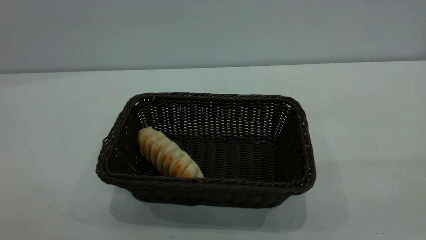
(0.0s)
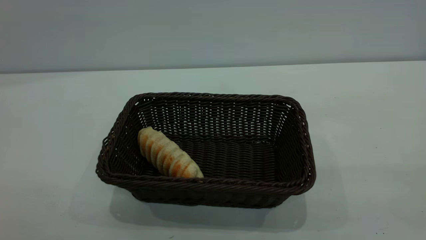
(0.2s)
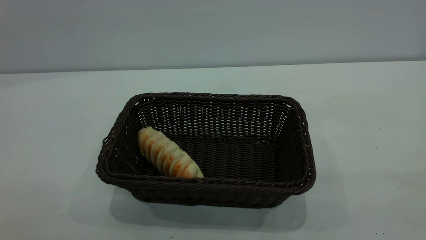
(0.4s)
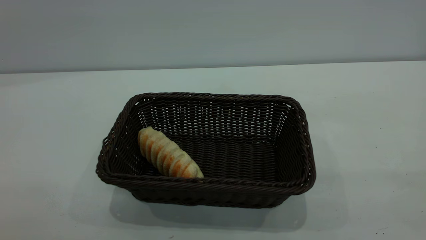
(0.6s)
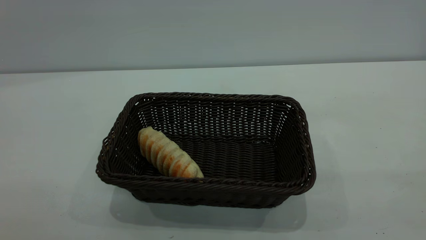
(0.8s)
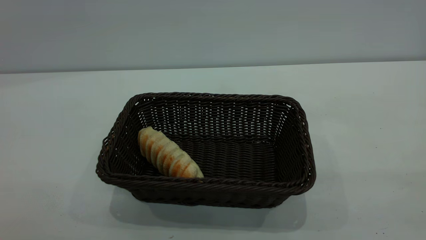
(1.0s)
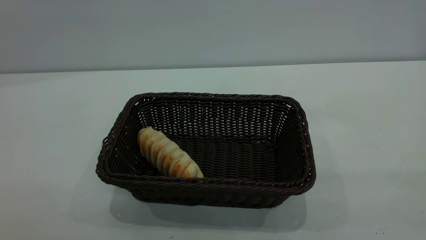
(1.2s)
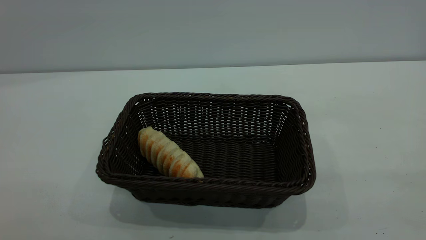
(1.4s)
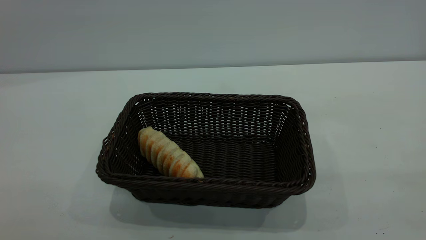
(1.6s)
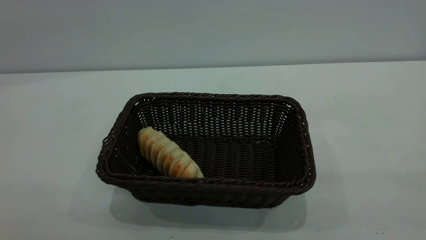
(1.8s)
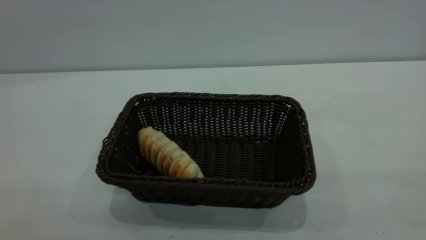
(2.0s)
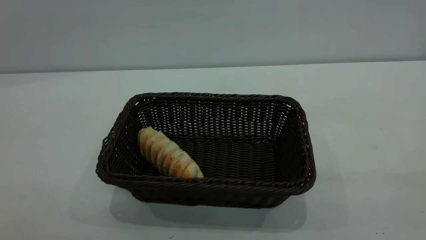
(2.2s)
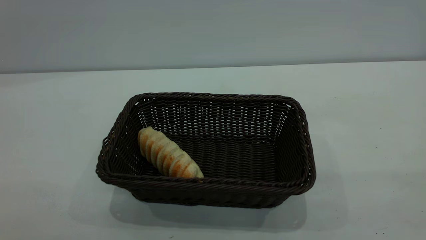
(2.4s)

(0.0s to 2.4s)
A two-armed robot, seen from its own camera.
Task of the whole recording: One hand grasps the black basket and places it in the middle of the table, while the other hand picks up the long bread and puts it into the black basket.
1.2s - 2.4s: Both grippers stay put.

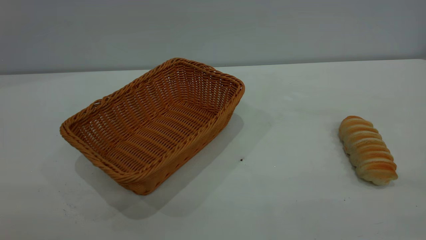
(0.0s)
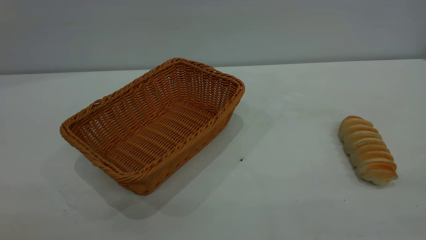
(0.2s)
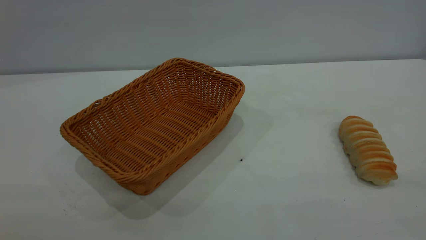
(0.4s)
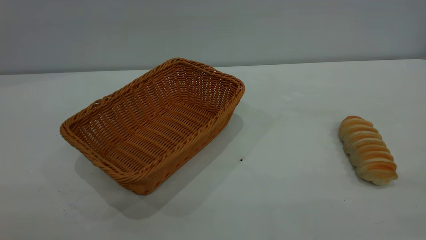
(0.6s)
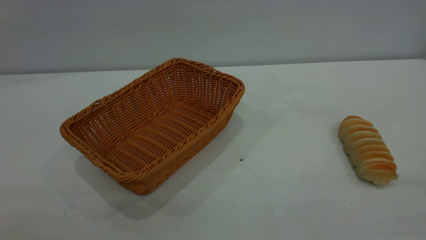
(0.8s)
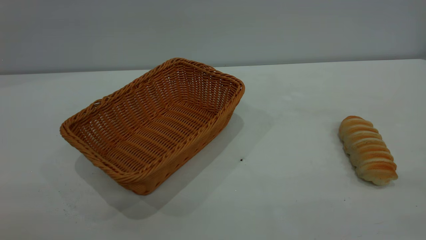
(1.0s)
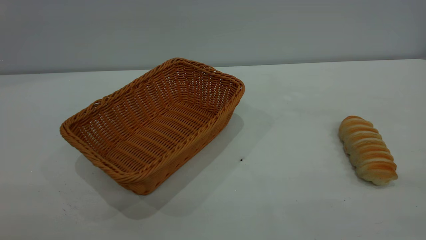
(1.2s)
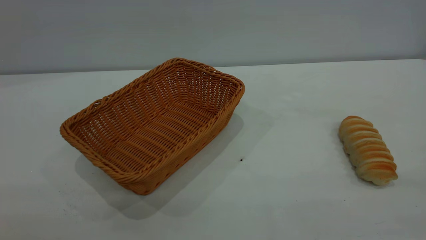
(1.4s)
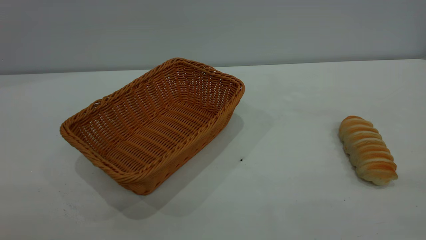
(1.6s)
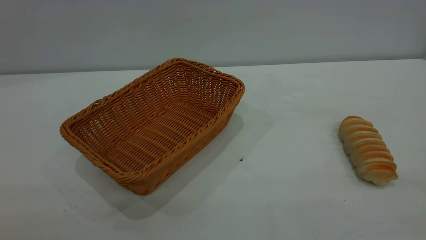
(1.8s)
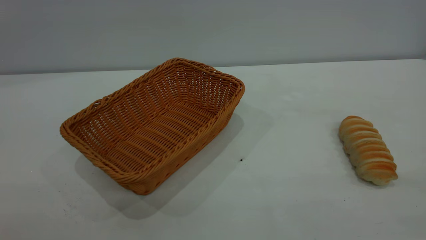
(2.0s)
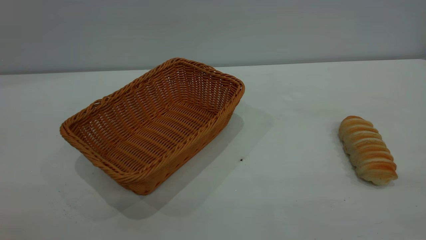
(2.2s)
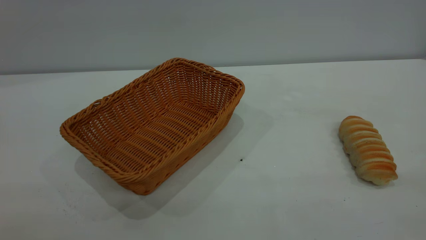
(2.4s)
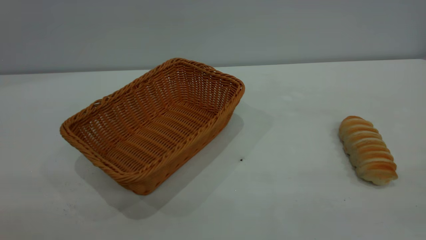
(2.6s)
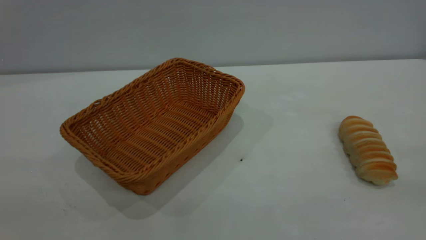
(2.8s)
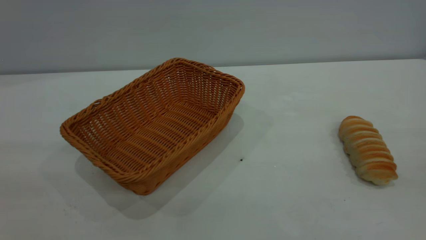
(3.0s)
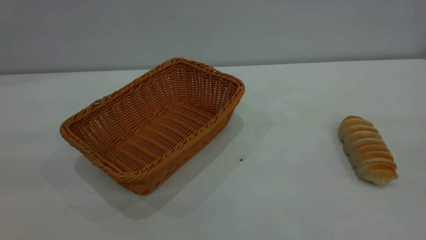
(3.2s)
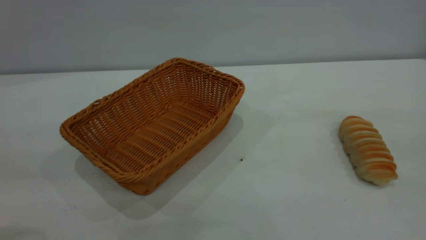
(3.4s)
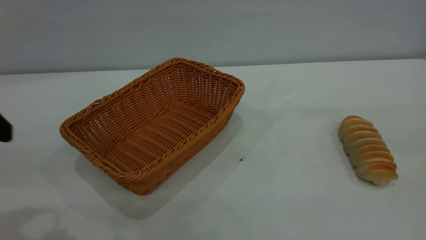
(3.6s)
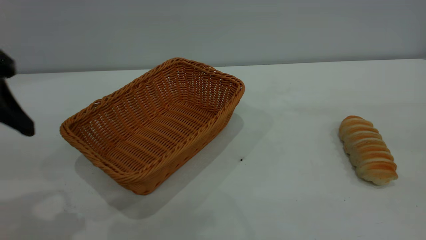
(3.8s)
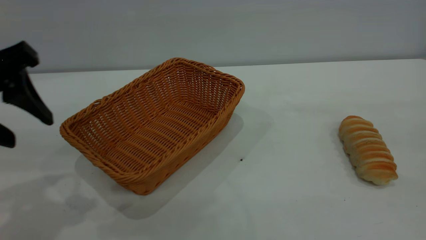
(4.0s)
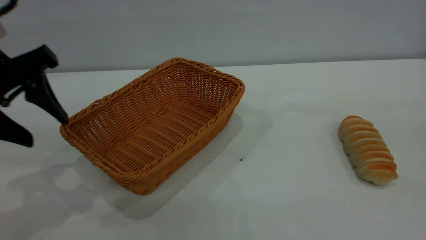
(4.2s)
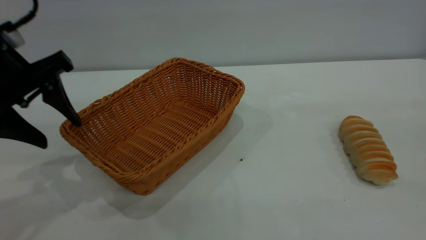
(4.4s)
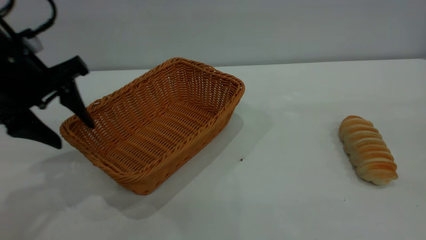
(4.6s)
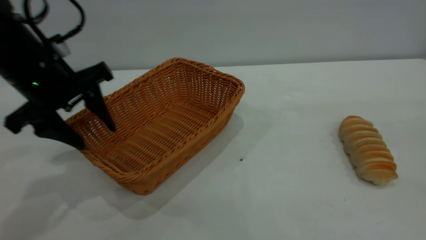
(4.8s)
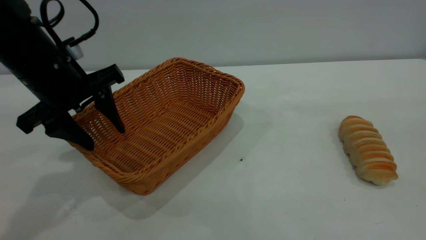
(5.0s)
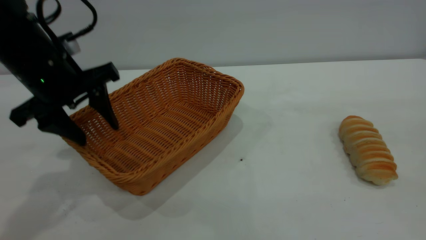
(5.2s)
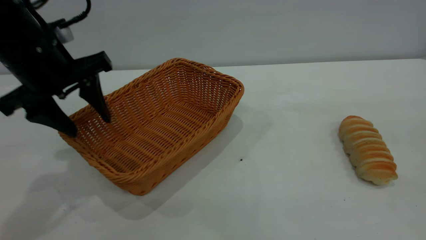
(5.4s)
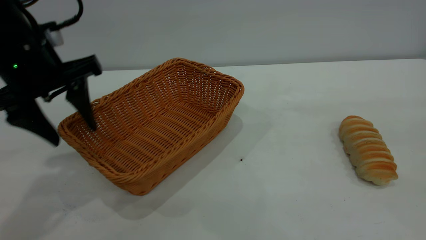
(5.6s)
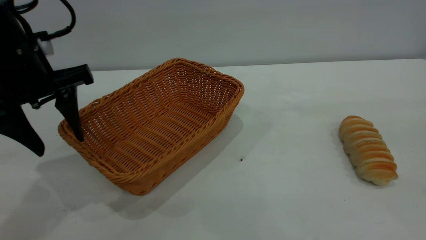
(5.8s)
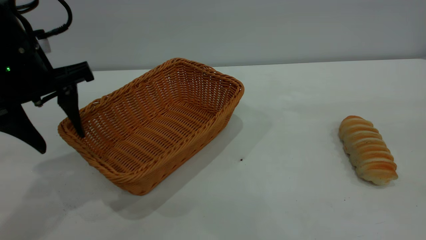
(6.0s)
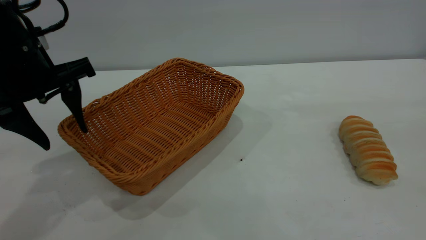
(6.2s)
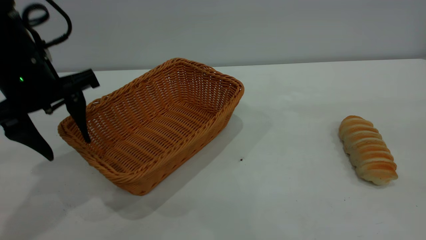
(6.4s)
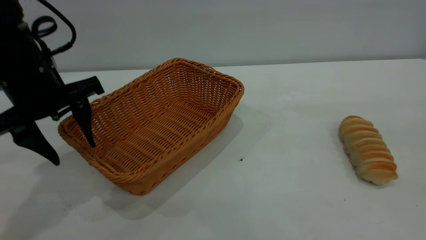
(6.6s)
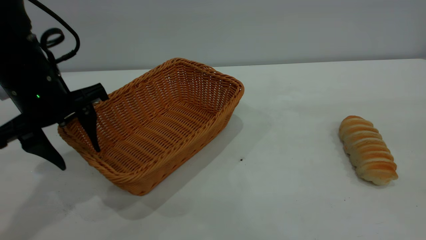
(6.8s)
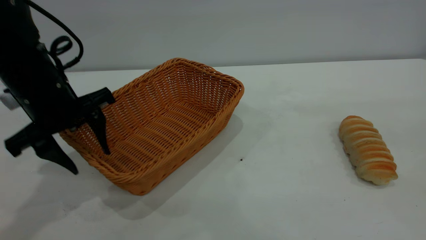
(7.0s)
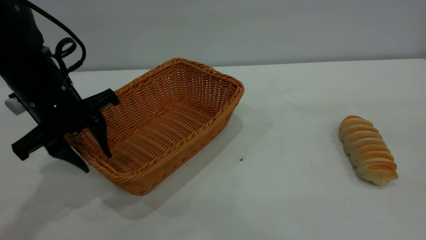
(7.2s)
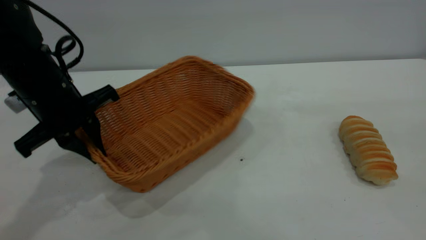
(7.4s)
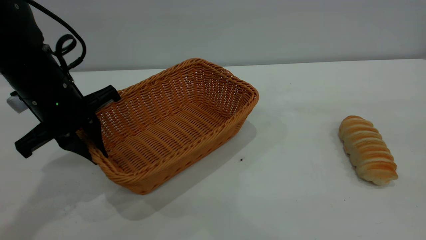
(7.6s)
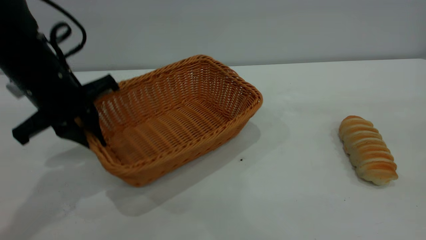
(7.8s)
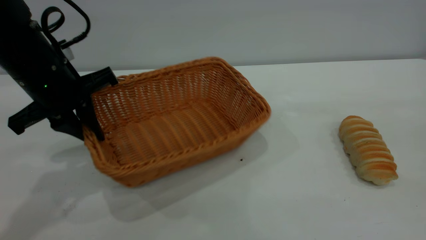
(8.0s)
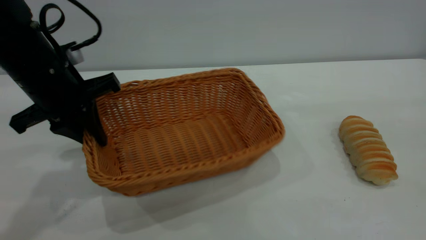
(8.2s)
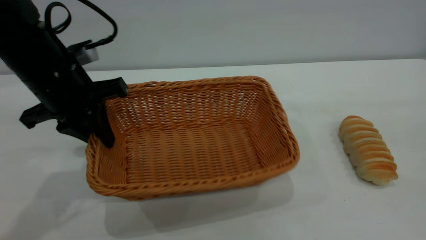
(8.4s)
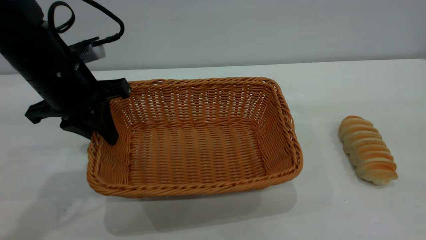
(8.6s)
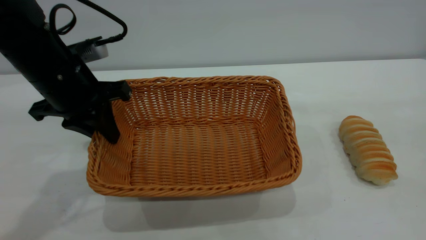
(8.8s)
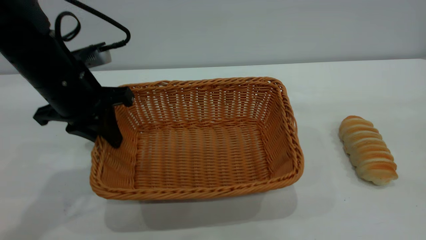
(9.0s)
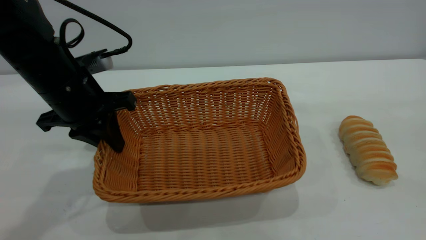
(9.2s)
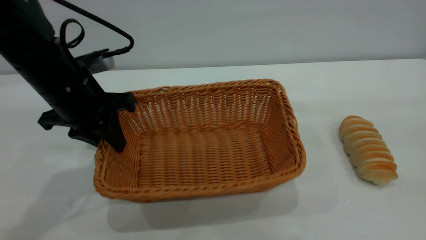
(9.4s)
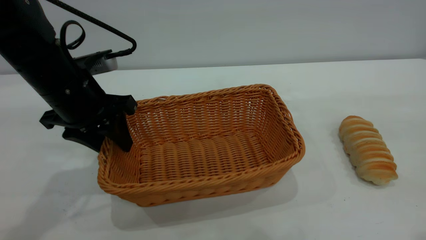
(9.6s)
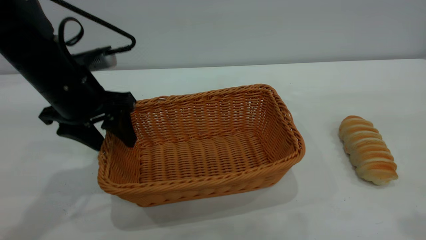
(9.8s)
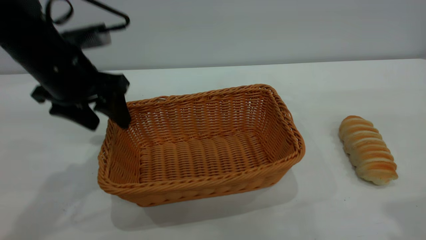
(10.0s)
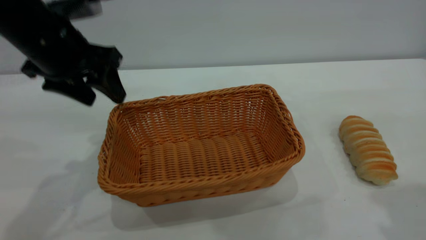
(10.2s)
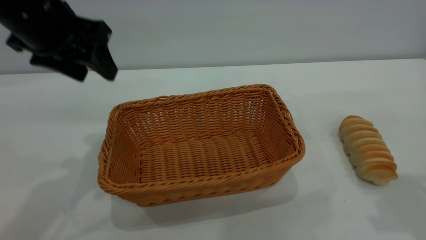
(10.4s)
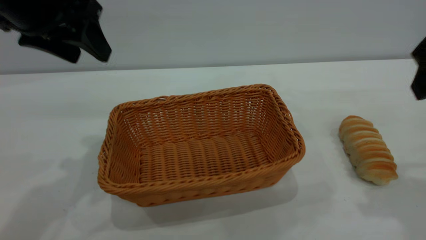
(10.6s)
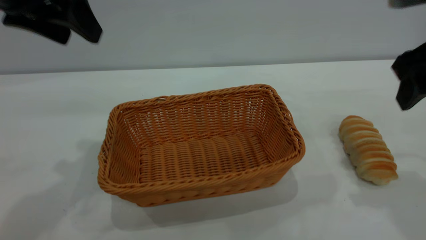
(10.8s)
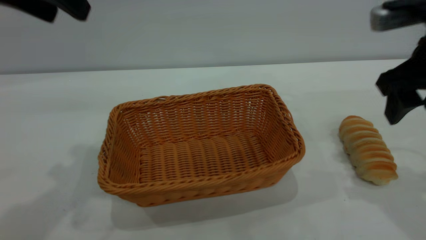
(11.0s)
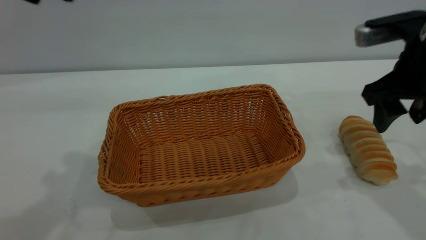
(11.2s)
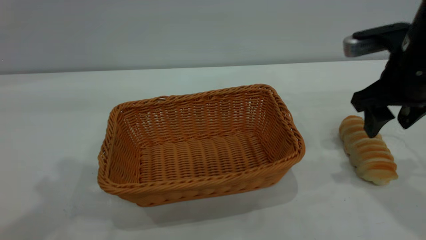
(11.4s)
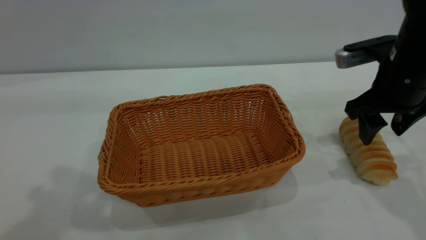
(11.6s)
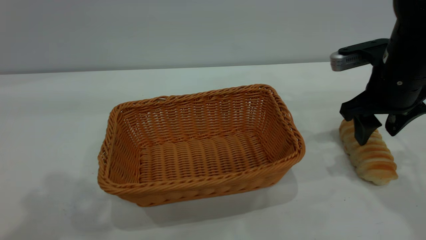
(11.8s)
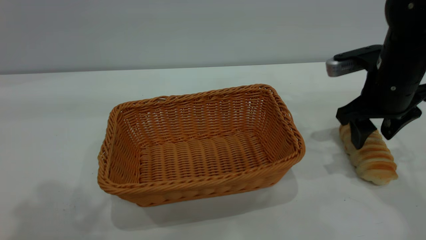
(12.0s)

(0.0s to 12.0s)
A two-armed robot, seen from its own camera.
Task of the whole recording: One hand grasps the yellow basket and places it in the middle of the table, while the other hand picks up the long bread and puts it into the yellow basket.
Step, 0.0s - 10.2s: Move the basket to the center of view.
0.0s - 1.6s: Neither gripper changes place.
3.0s - 4.4s: The left gripper is displaced forward and downward by some 25 cm.
4.4s - 6.0s: The grippers make only small movements.
6.0s - 7.6s: The left gripper moves downward, roughly 5 cm, and closes its fingers.
9.0s - 10.4s: The right gripper travels forward and downward by approximately 15 cm; the left gripper travels upward by roughly 10 cm, and opens its fingers.
10.4s - 12.0s: The left gripper is displaced upward and backward by roughly 20 cm, while the right gripper is displaced downward and forward by about 20 cm.

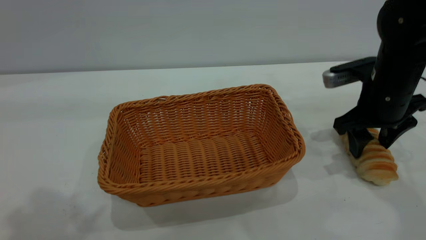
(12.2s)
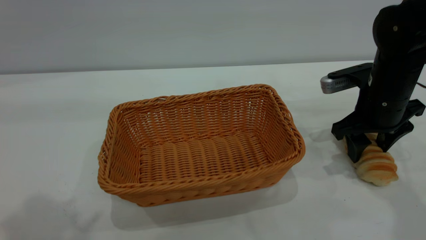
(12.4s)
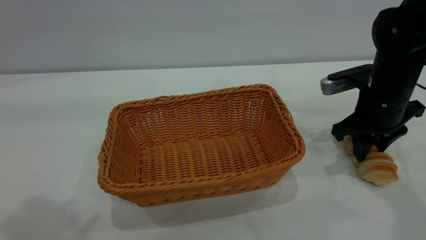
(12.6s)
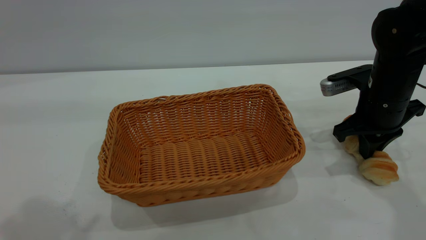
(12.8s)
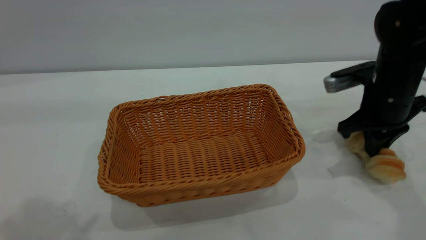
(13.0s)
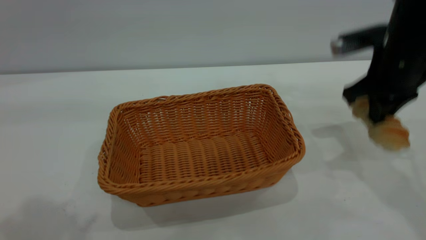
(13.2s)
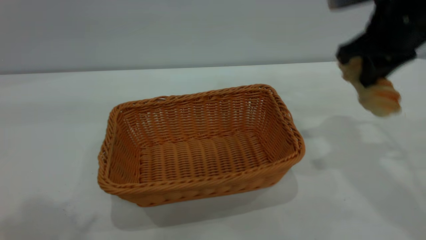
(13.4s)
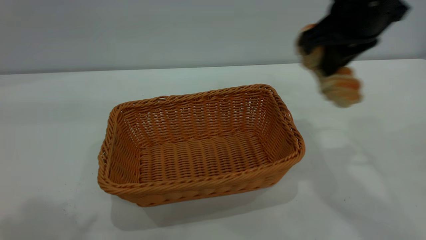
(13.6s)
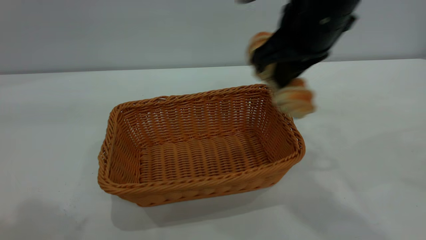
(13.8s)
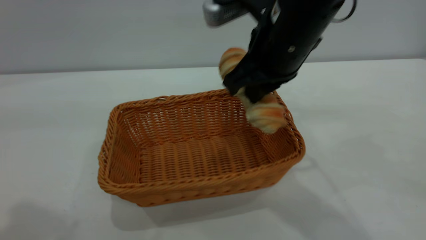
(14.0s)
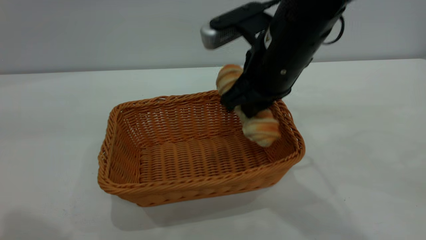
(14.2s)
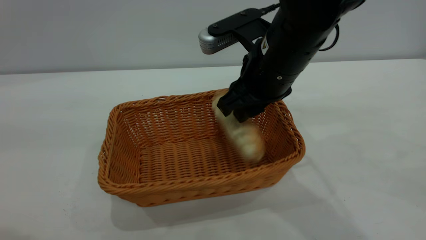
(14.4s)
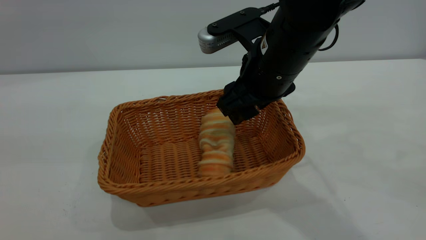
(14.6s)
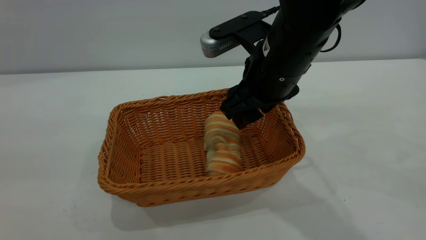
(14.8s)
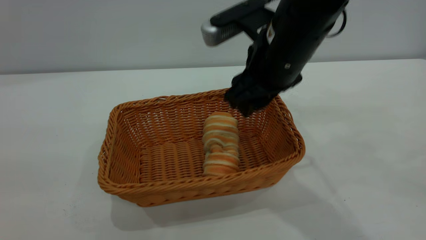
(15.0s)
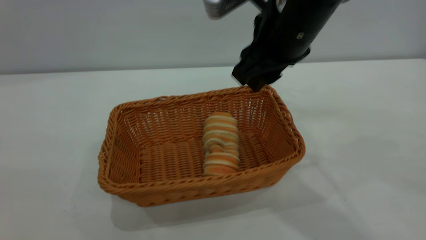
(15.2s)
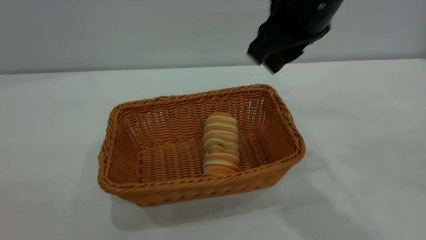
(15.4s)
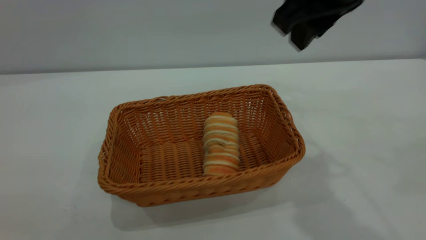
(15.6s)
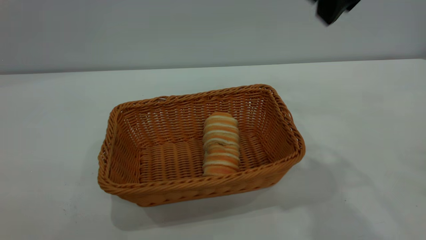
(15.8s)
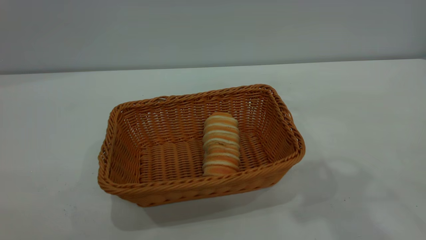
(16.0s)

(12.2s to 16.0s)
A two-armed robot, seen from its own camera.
Task of the whole recording: One hand grasps the yellow basket and places it in the middle of the table, while the other hand picks up the long bread and puts it into the yellow basket.
Step, 13.4s - 15.2s: place the bread into the basket.
12.2s - 13.4s: The right gripper heads upward, covering about 15 cm, and closes.
13.4s - 14.8s: The right gripper shifts some 15 cm to the left and downward, and opens up. The left gripper travels backward and downward by roughly 10 cm.
14.8s - 16.0s: The right gripper heads upward and to the right, covering about 20 cm, and closes its fingers. The left gripper moves backward, roughly 10 cm.
